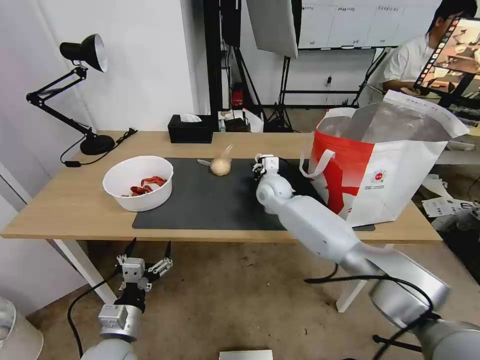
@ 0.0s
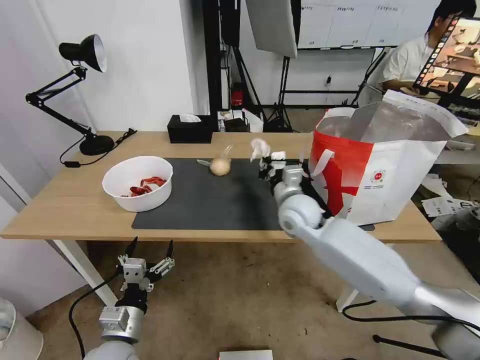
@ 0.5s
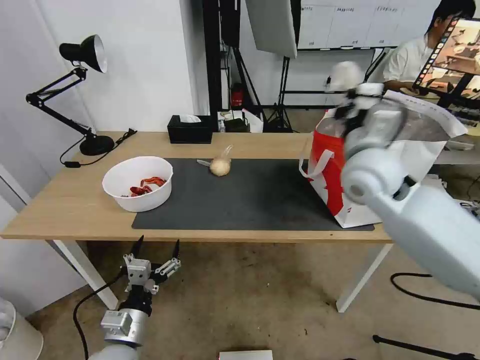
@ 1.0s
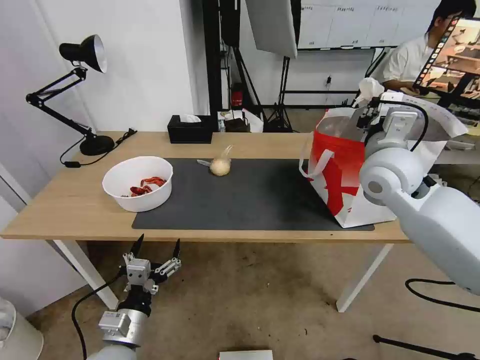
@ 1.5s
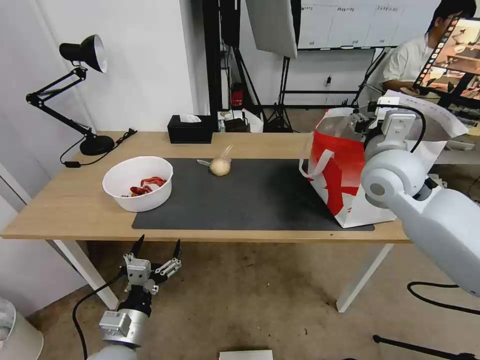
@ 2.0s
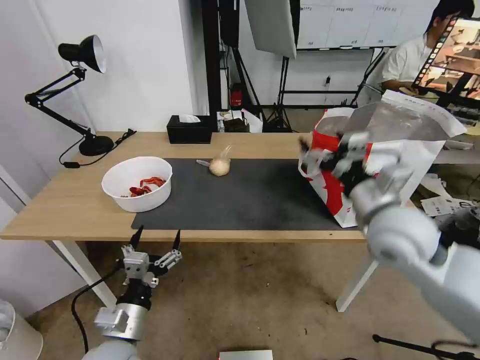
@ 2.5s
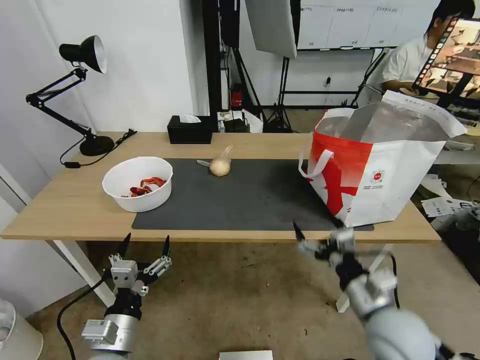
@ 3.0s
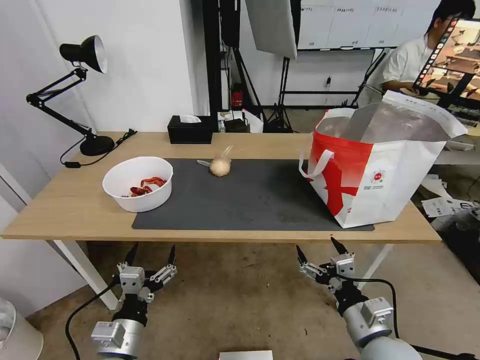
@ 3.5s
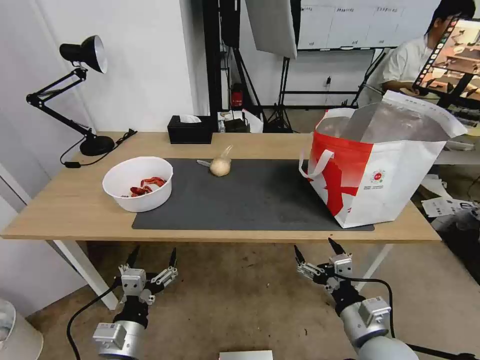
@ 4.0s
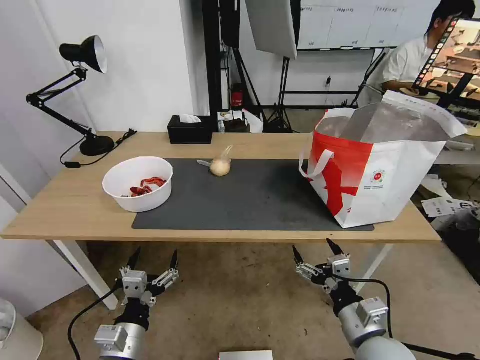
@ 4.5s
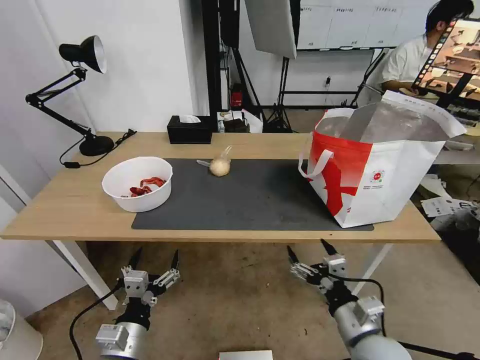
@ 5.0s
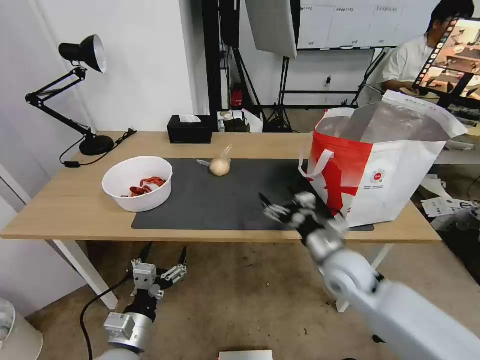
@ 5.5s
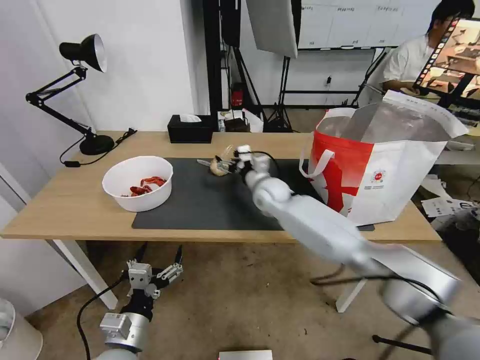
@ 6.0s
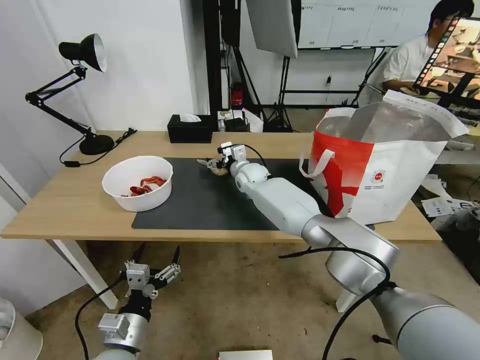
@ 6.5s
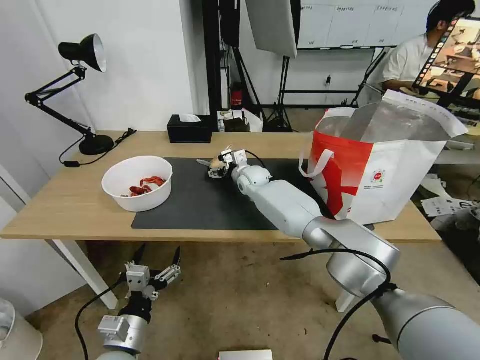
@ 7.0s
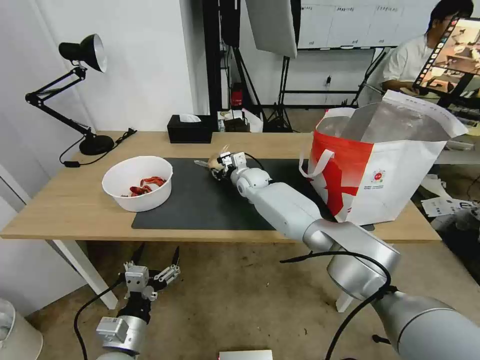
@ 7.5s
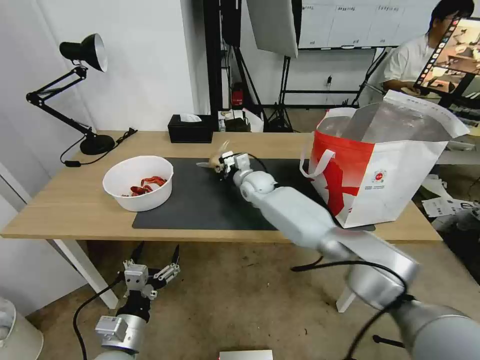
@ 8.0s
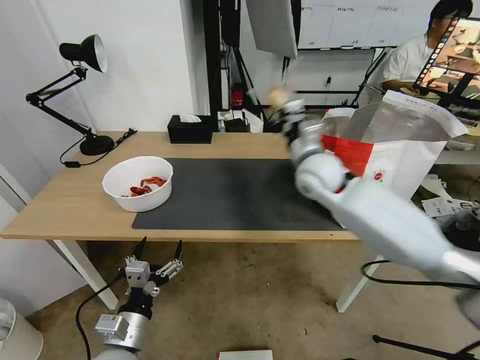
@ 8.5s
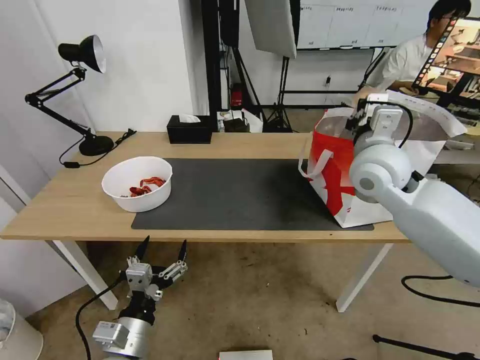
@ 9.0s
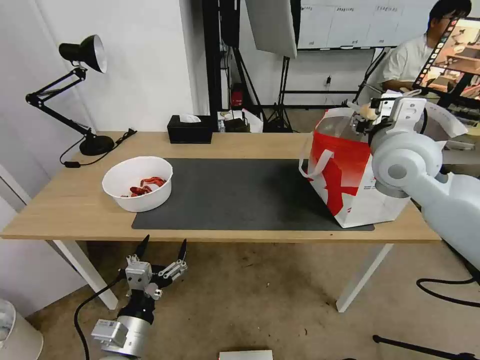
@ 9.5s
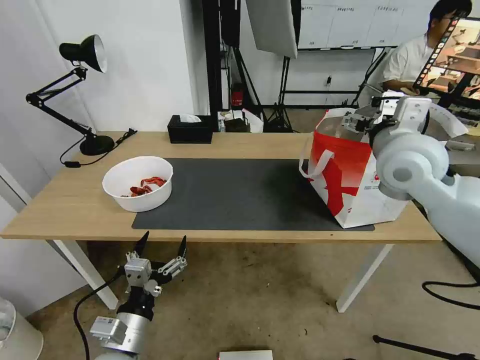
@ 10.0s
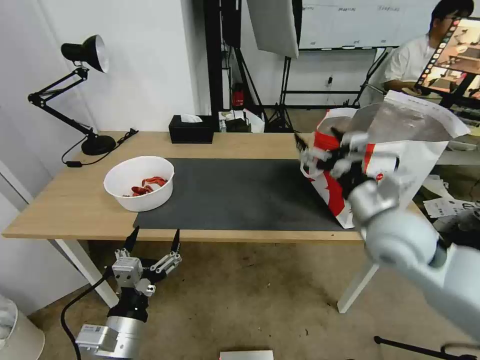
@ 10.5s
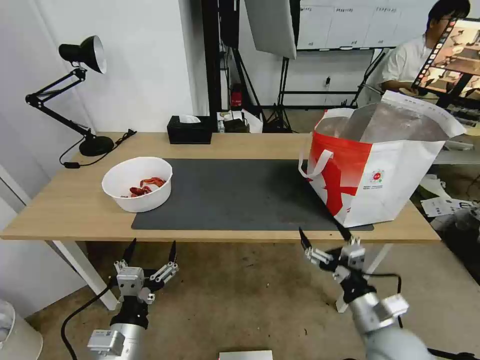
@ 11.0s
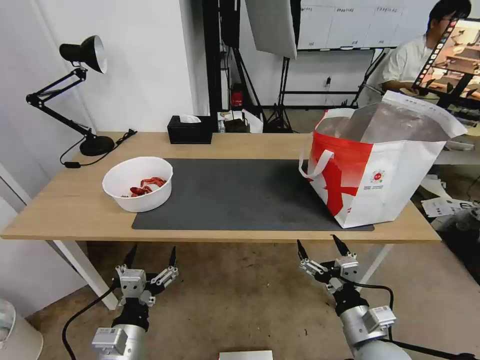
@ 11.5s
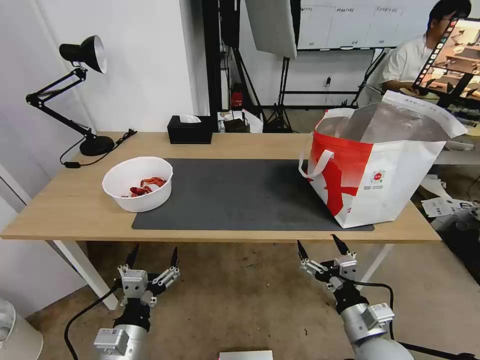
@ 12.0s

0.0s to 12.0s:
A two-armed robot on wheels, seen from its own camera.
Task of the whole recording: Pick up the trash from the table and place it into the takeout bag.
0.0s to 2.0s: The right gripper heads upward, to the right and backward, covering about 30 cm, and opens up.
2.0s to 4.0s: The right gripper goes some 35 cm backward and downward.
4.0s to 6.0s: The right gripper moves forward and to the left, about 40 cm.
6.0s to 8.0s: The right gripper closes up.
8.0s to 10.0s: The right gripper is displaced upward, to the right and backward by approximately 35 cm, and opens.
10.0s to 12.0s: The right gripper shifts roughly 40 cm downward and backward.

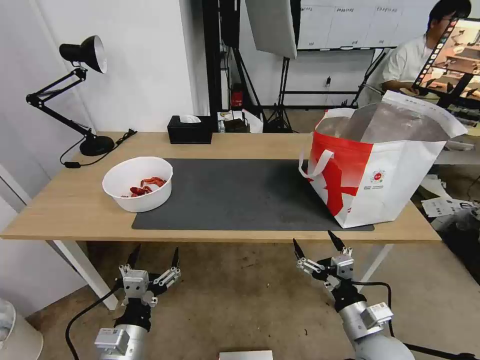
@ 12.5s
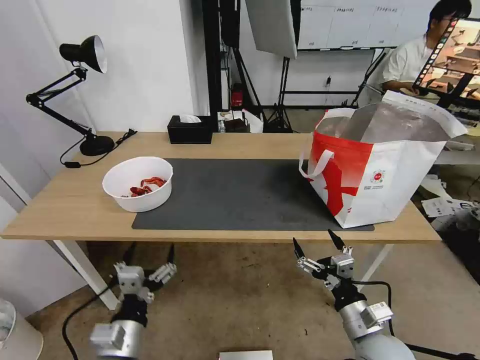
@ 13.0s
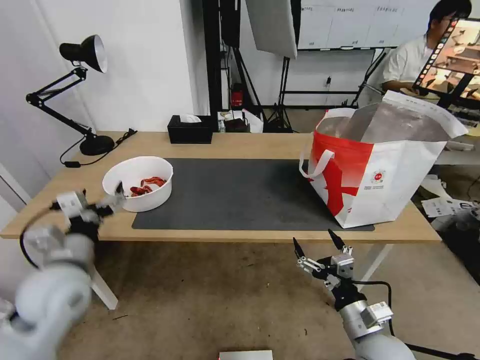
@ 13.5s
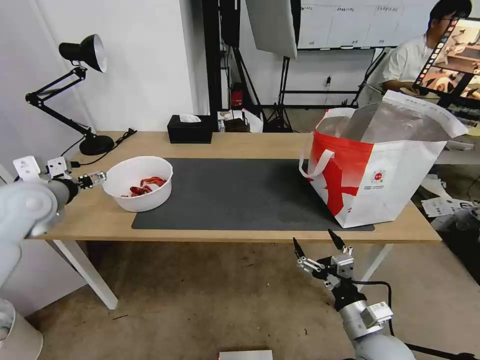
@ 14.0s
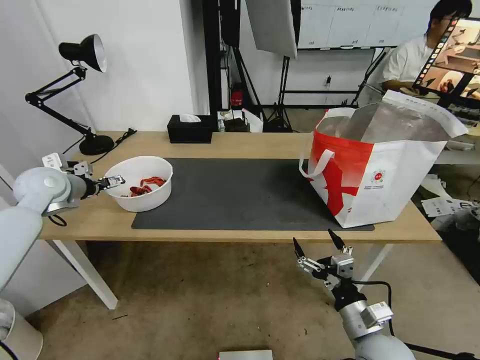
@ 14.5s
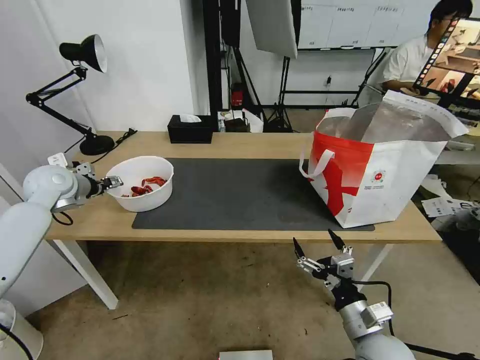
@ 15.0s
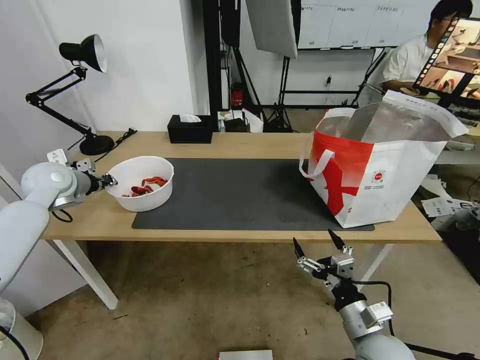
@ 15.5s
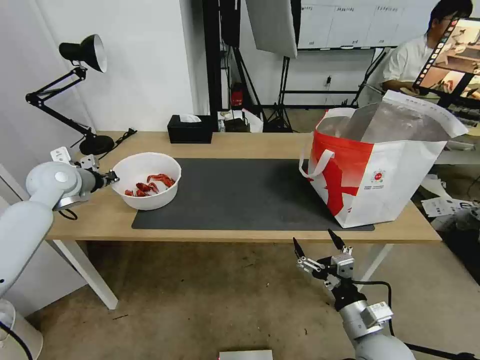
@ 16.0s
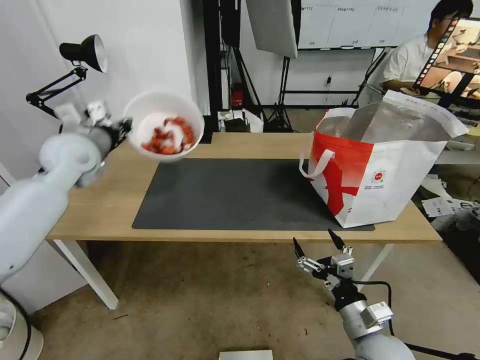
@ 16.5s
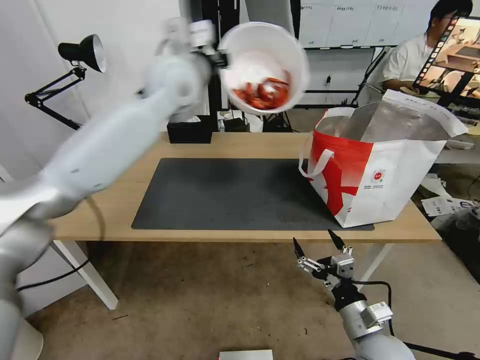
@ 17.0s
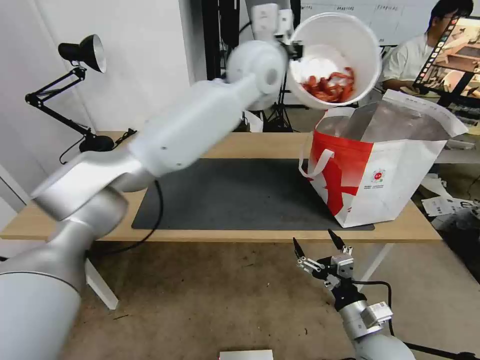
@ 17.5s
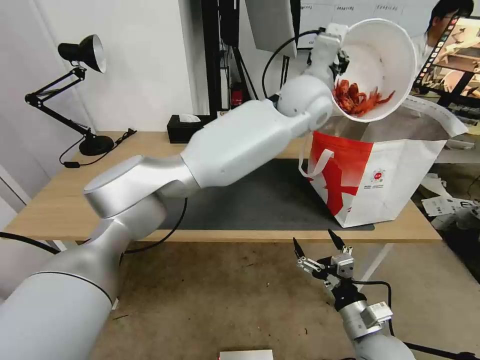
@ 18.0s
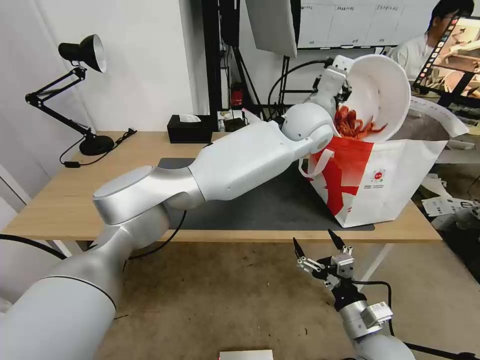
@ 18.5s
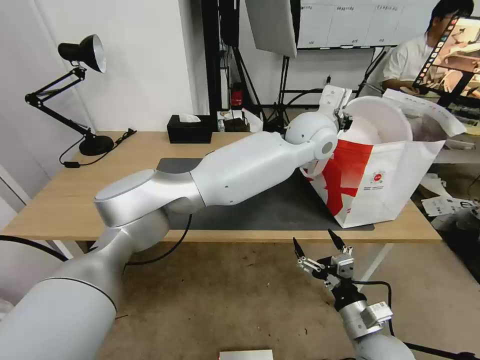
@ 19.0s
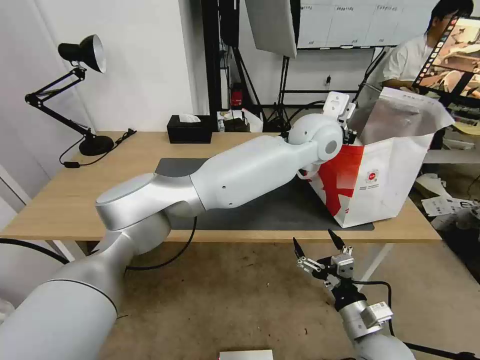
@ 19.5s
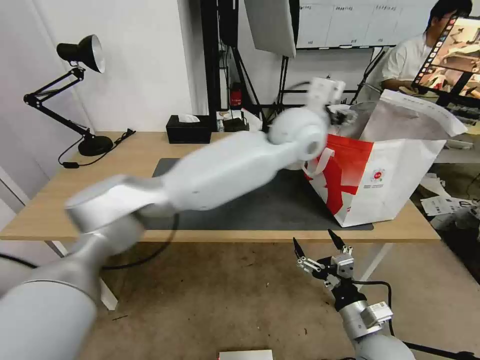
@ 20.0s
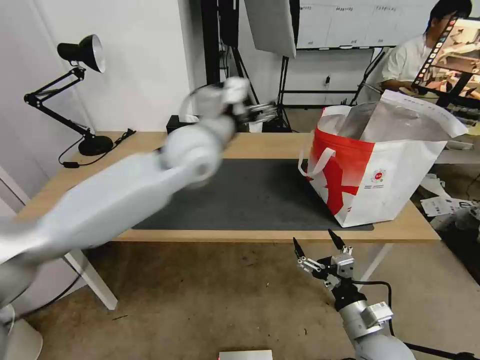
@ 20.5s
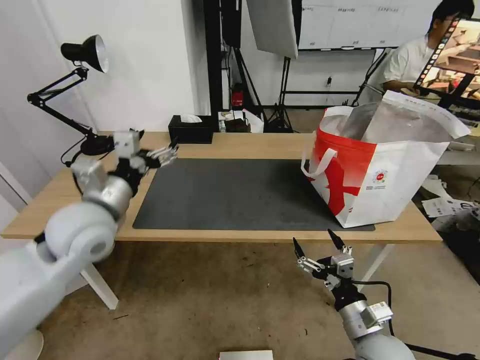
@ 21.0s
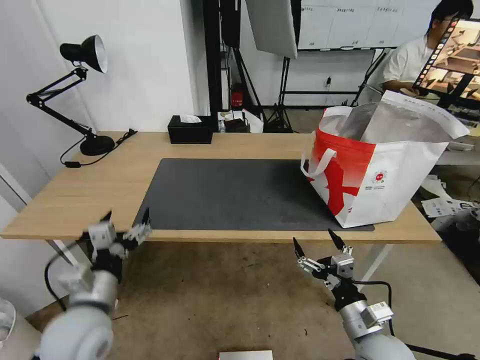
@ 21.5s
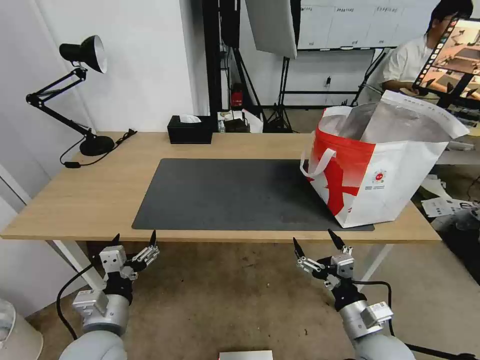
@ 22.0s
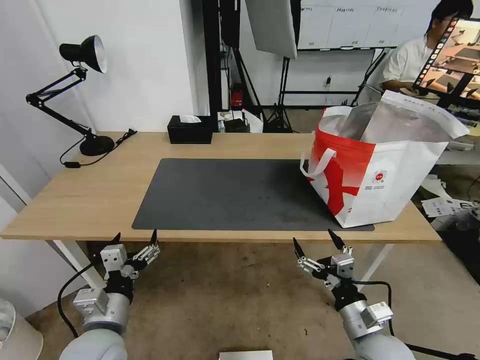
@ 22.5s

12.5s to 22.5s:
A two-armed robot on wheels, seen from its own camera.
Task of the whole recording: Pick up the trash from the table and place it into the takeout bag.
12.5s to 14.5s: The left gripper is displaced forward, to the left and upward by some 40 cm.
14.5s to 16.5s: The left gripper goes roughly 10 cm to the right and upward, and closes.
16.5s to 18.5s: The left gripper shifts roughly 50 cm to the right.
18.5s to 20.5s: The left gripper shifts roughly 25 cm to the left, and opens.
20.5s to 22.5s: The left gripper is displaced backward, downward and to the left by roughly 35 cm.

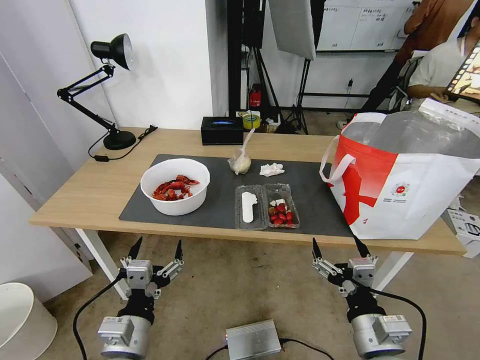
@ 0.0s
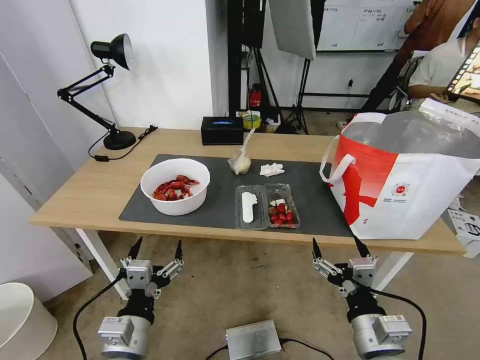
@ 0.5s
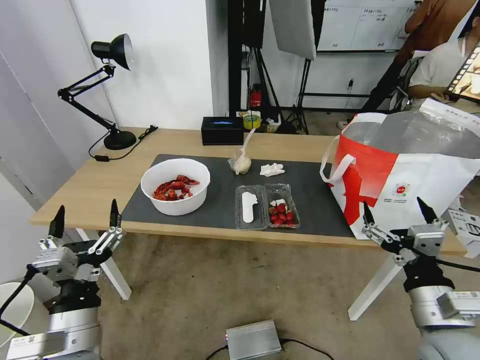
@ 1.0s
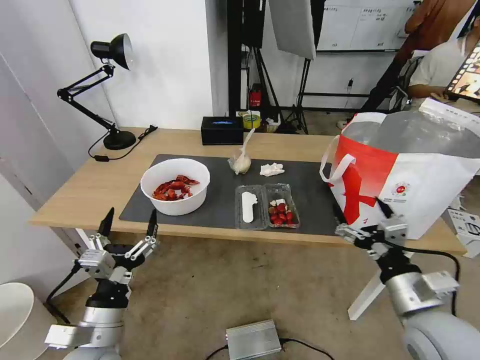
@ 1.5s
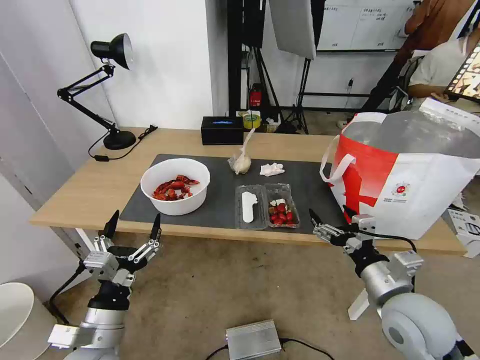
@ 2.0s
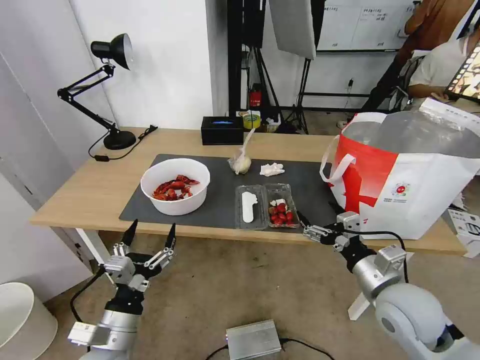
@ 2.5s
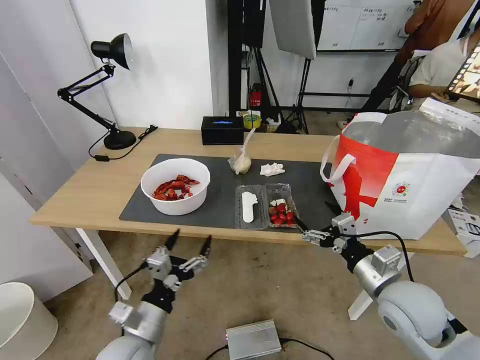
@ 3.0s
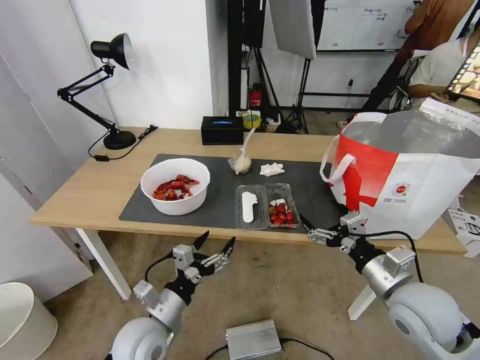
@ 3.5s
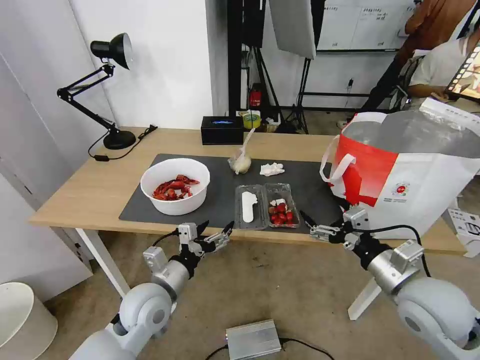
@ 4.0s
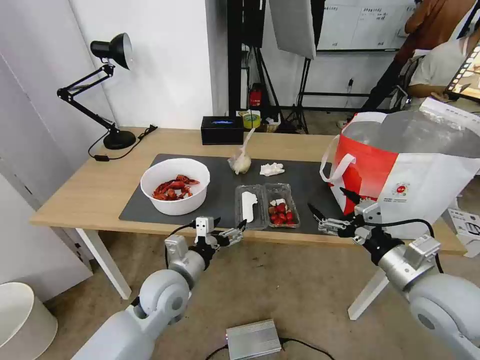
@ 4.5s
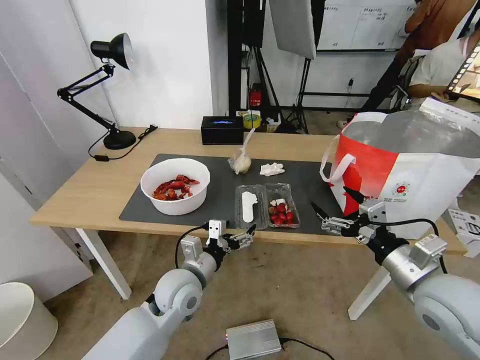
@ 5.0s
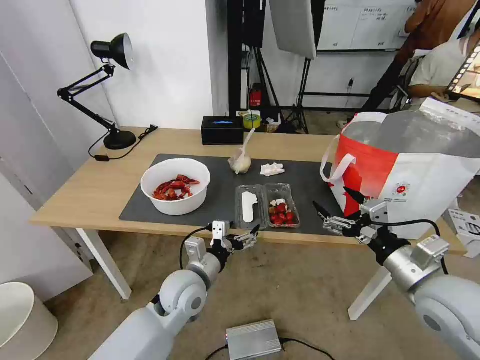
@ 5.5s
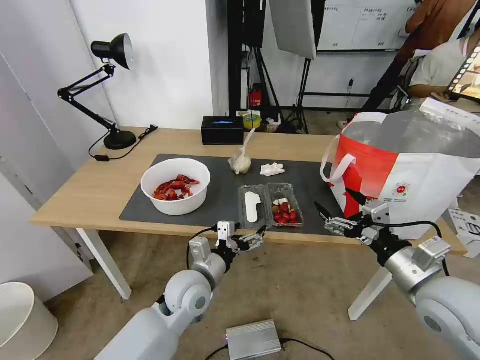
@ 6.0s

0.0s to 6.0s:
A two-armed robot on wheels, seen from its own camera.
Task of the whole recording: Pick up the trash from the table and place it into the takeout bag.
2.0s to 4.0s: The left gripper goes approximately 15 cm forward and to the right.
4.0s to 6.0s: The left gripper moves to the right, approximately 10 cm.
